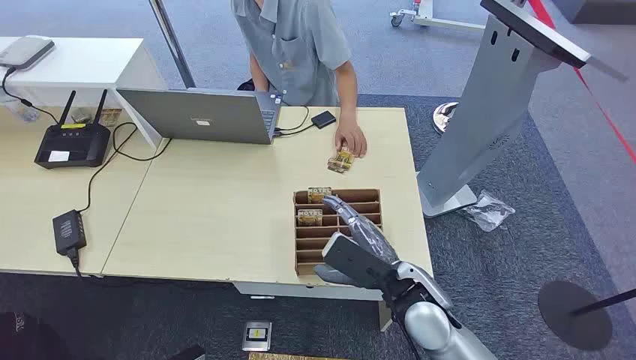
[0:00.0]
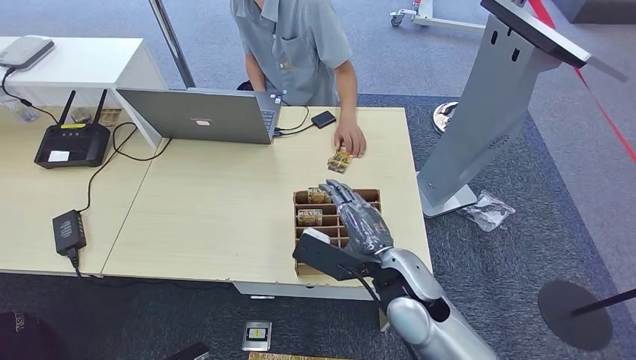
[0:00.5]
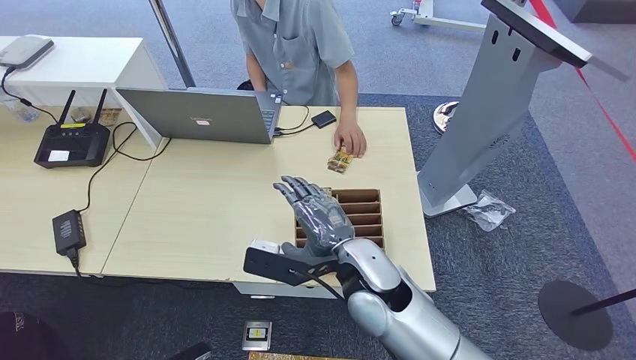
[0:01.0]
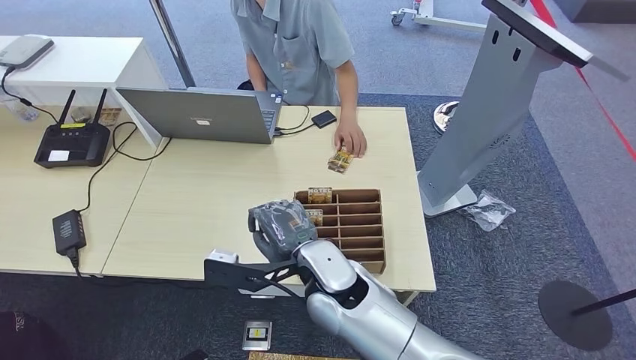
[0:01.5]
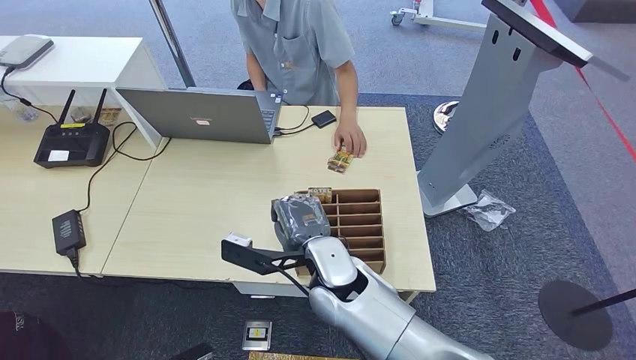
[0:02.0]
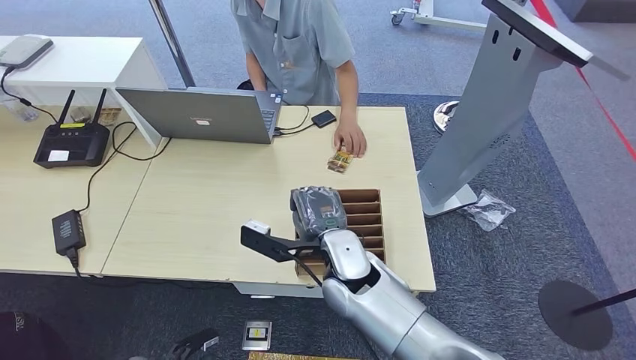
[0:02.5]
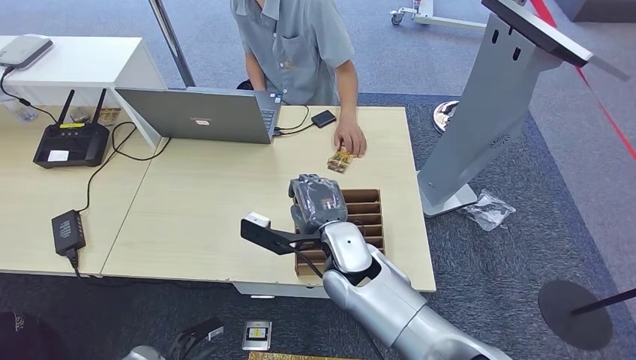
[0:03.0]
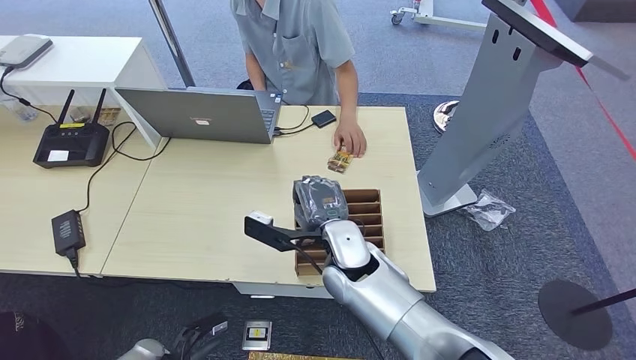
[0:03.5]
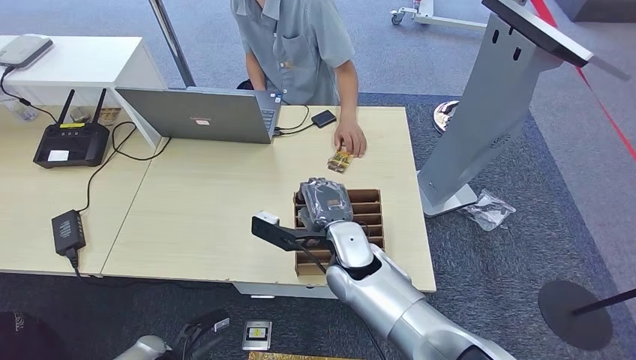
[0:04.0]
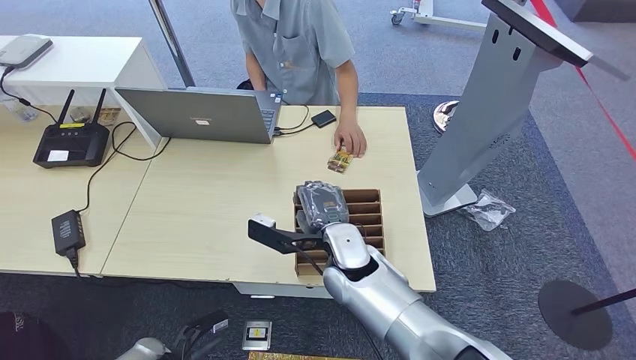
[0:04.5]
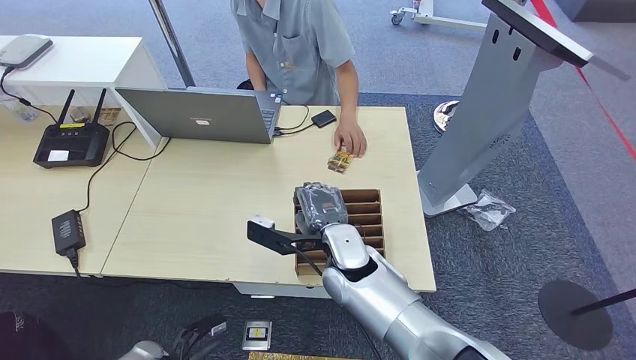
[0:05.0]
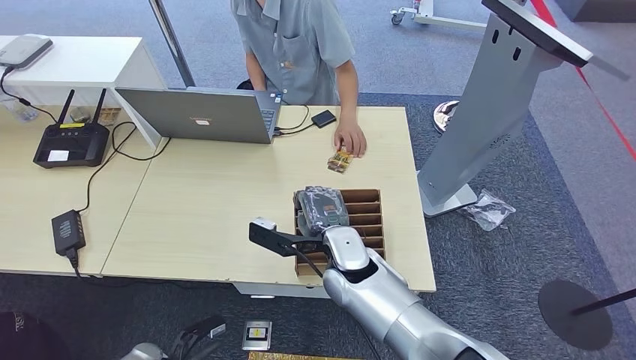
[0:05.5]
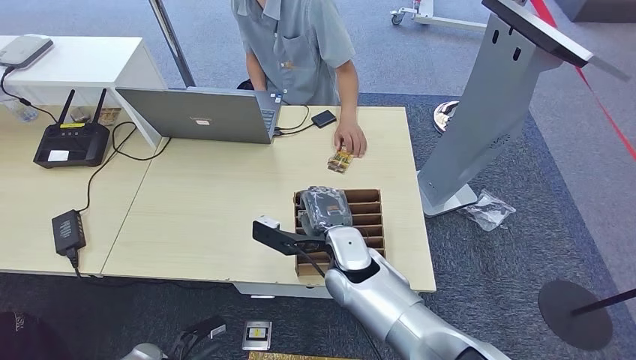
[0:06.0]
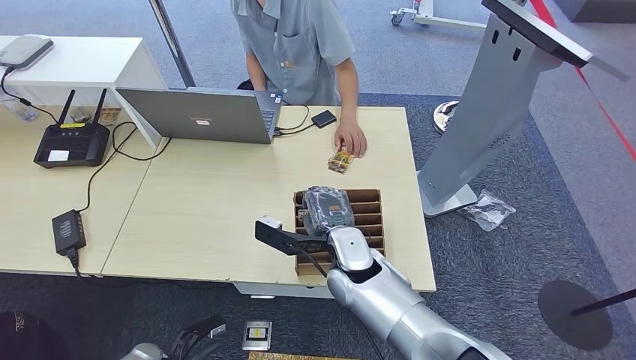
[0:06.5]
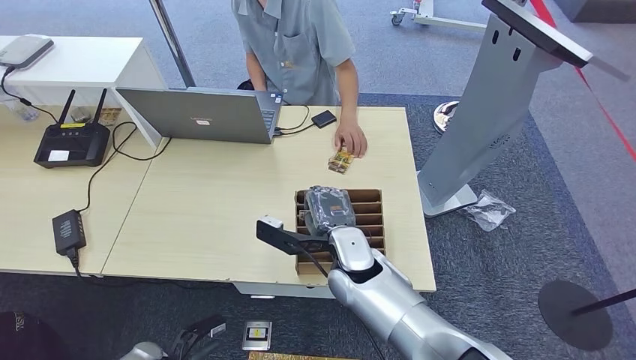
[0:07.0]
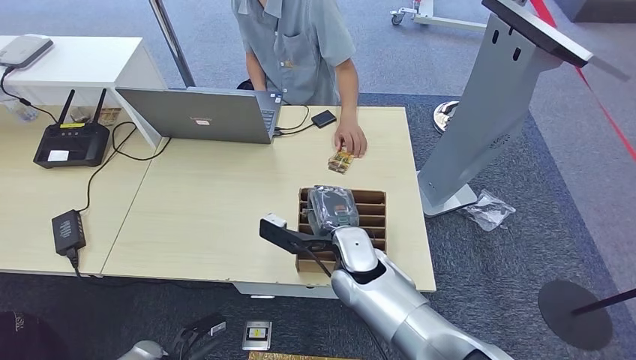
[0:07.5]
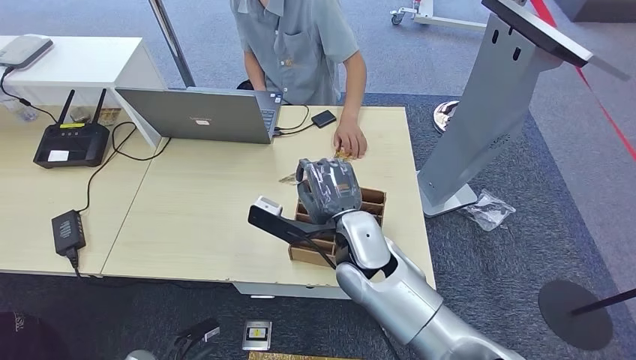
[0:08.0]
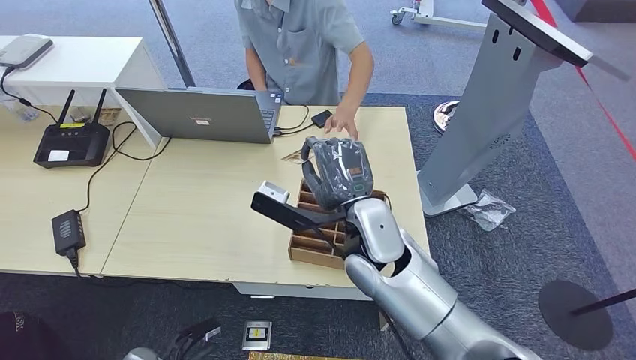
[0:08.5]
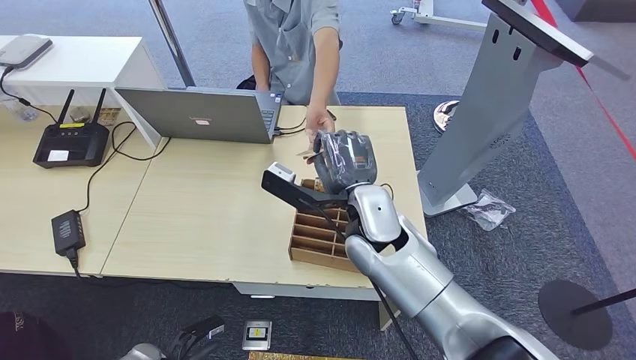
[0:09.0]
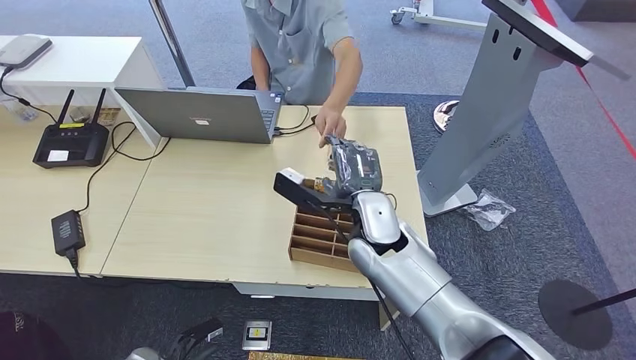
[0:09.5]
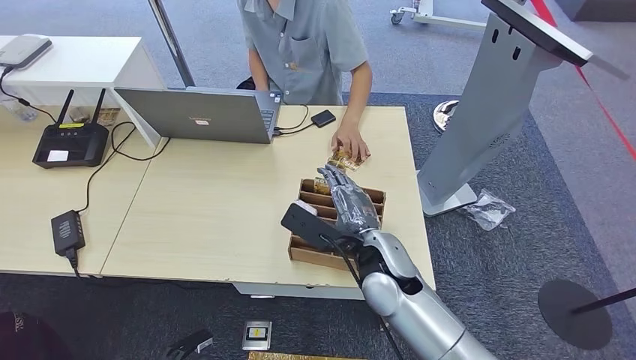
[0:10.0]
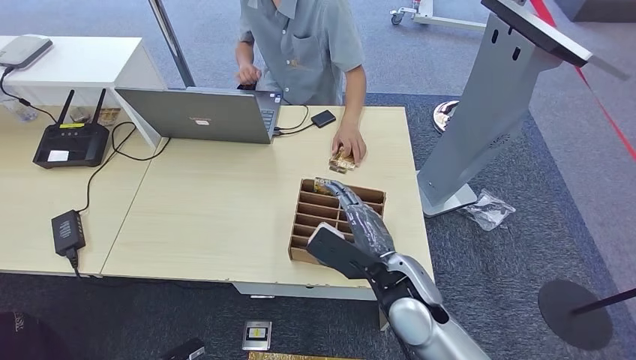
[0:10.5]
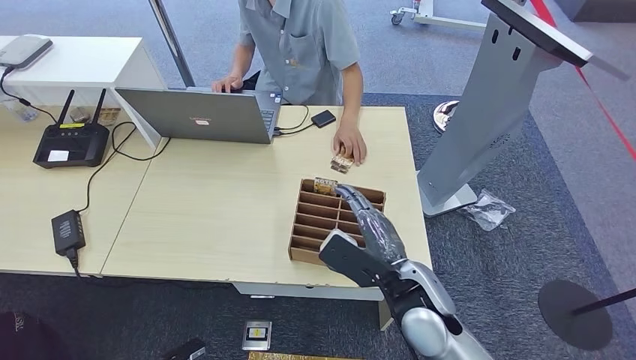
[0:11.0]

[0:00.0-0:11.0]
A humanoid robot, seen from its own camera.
Step, 0:00.0 to 0:08.5: Pick up the key card from the card box.
Step, 0:09.0 to 0:11.0: Hand the key card to the target.
0:02.0 to 0:03.5: The left hand goes about 5 cm forward.
0:03.5 to 0:07.5: The hands move only a little.
0:07.5 to 0:09.0: The right hand is displaced upward by about 10 cm.
0:09.0 to 0:11.0: The right hand travels backward, to the right and downward by about 15 cm, while the left hand is displaced backward by about 5 cm.
